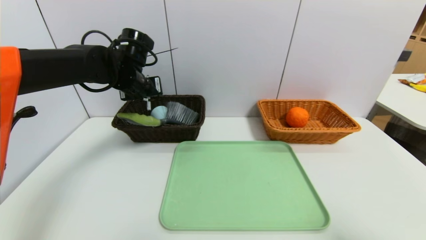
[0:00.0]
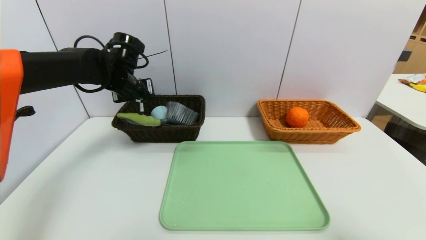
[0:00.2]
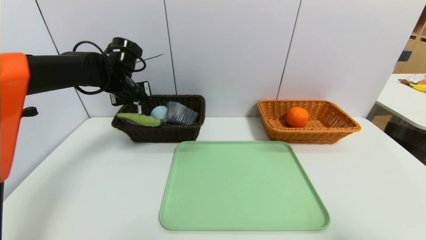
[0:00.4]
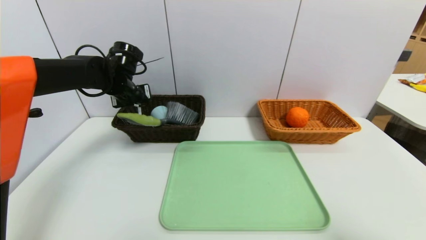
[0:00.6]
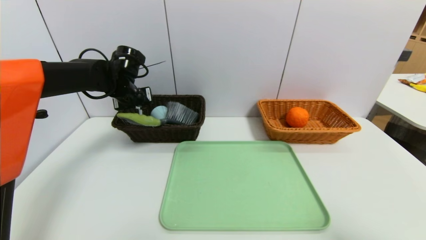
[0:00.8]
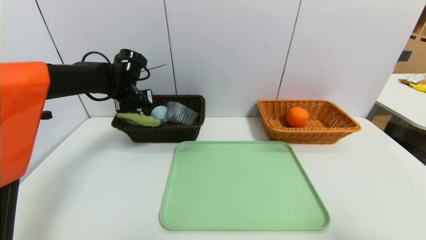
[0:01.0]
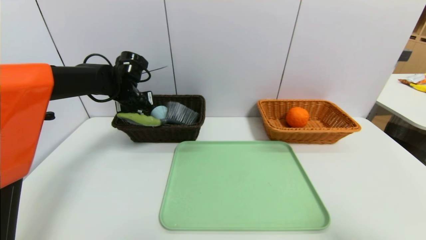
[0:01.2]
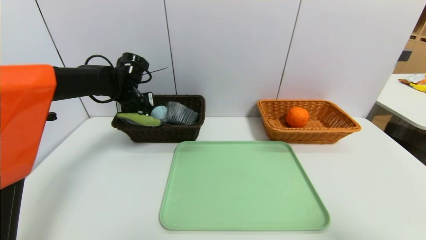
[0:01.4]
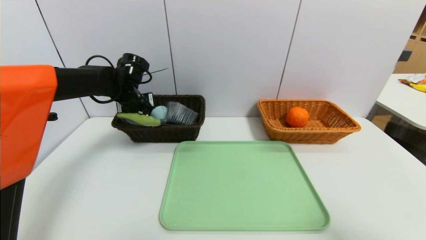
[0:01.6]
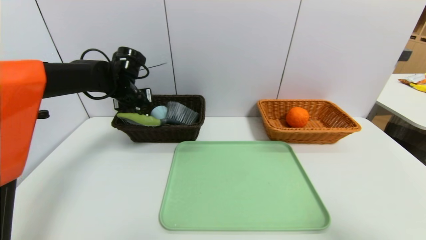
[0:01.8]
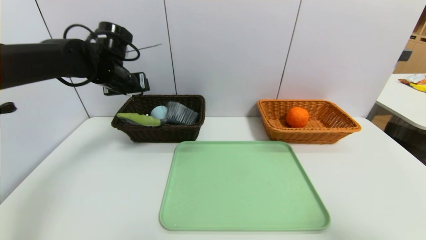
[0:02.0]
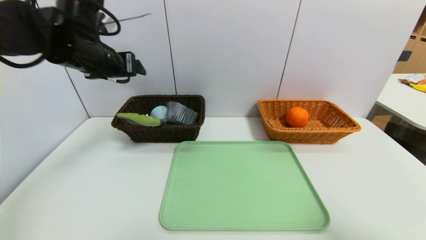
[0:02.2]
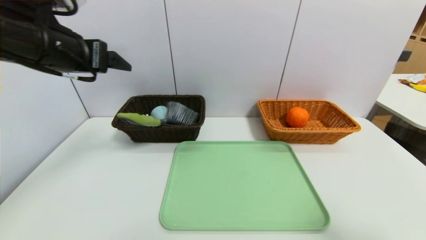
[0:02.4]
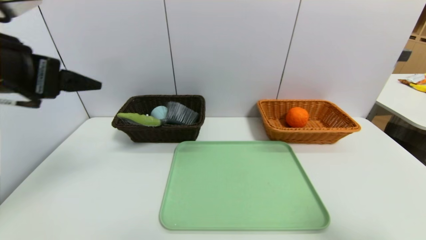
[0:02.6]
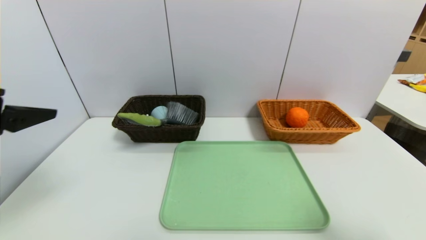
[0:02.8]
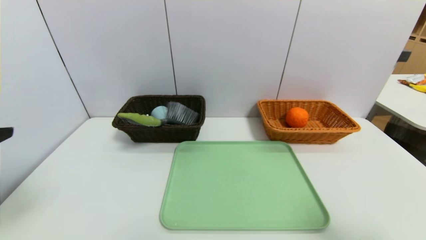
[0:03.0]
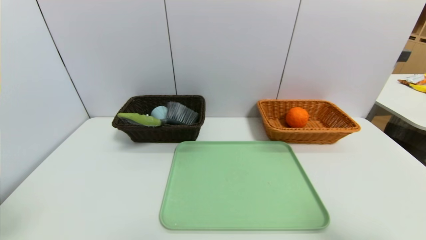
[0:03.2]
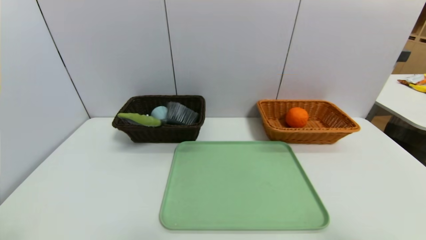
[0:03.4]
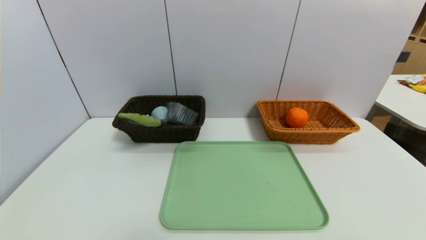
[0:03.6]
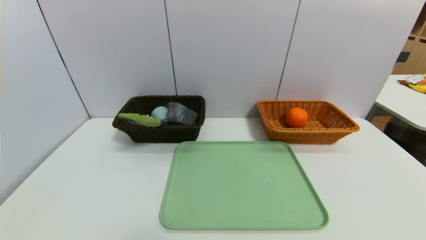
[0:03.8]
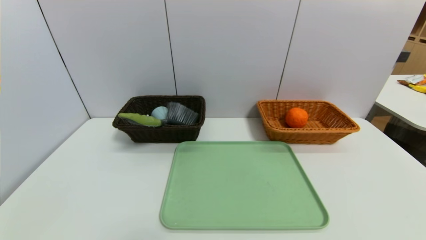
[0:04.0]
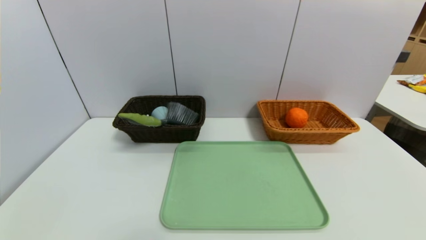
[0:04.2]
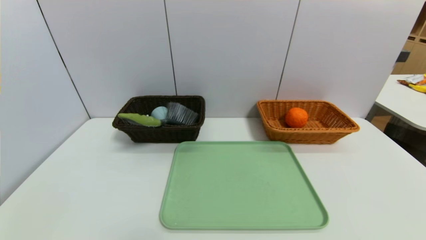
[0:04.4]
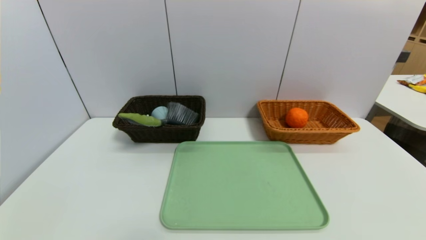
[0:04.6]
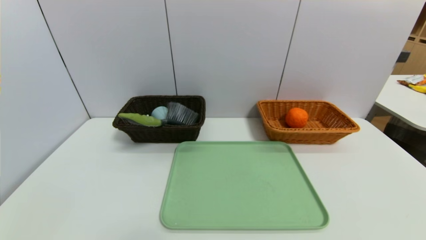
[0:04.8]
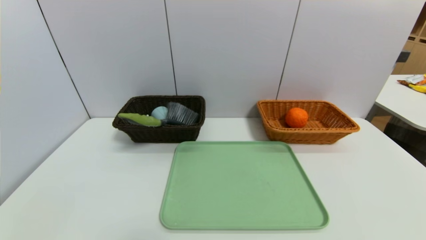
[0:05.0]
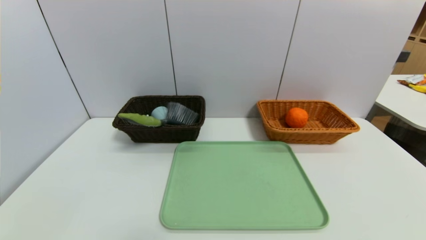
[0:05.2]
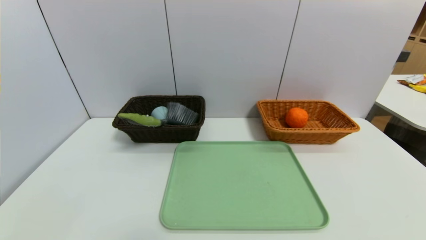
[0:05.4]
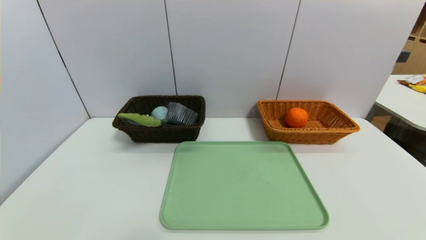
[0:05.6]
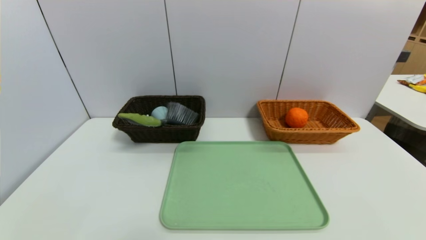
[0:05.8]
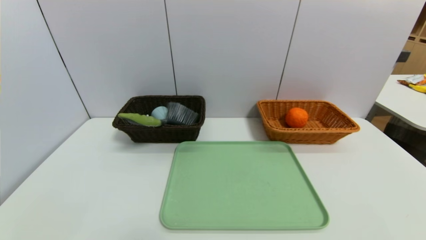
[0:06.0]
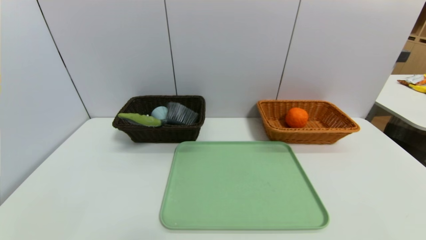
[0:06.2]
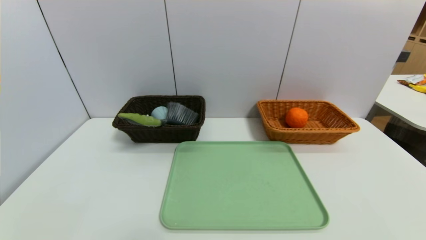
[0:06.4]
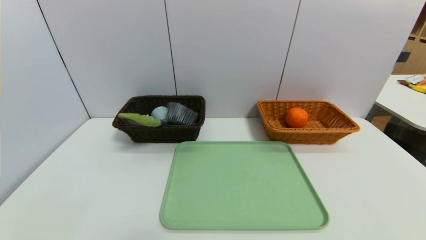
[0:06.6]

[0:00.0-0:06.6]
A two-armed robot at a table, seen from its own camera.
Task of the whole recording: place the food in the right basket with the right gripper, and place the non food items in the left basket with the left gripper.
0:00.0 to 0:01.6: The left gripper goes about 5 cm downward, and opens its fingers.
0:01.6 to 0:03.2: The left gripper travels backward by approximately 40 cm, and opens.
0:03.2 to 0:05.0: The left gripper shifts approximately 20 cm downward, while the right gripper heads downward and backward, covering roughly 15 cm.

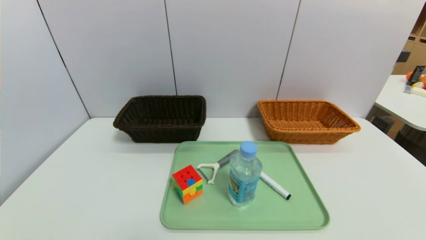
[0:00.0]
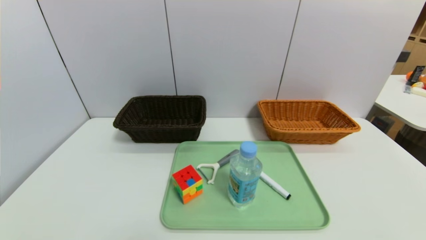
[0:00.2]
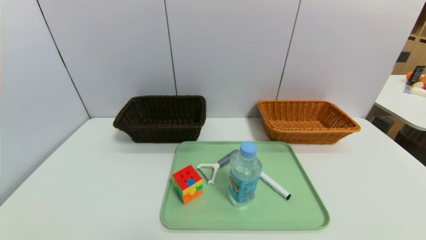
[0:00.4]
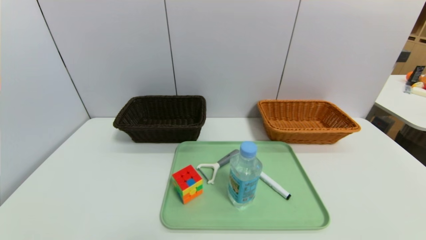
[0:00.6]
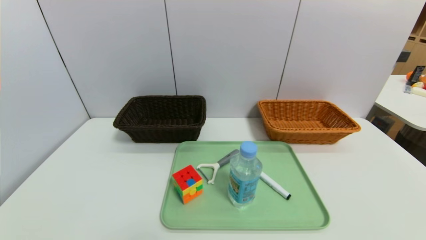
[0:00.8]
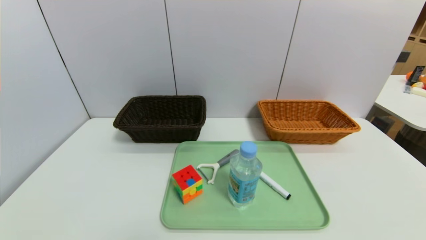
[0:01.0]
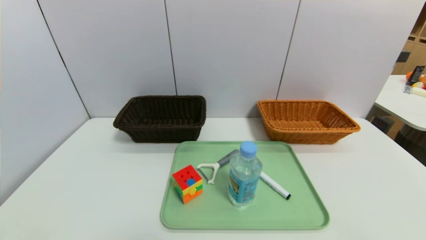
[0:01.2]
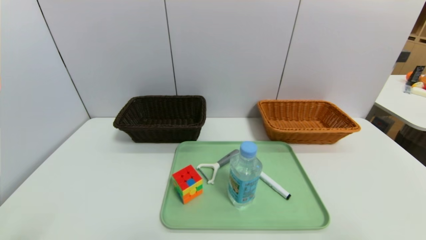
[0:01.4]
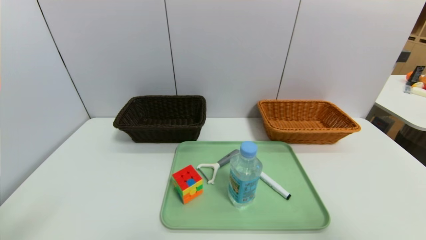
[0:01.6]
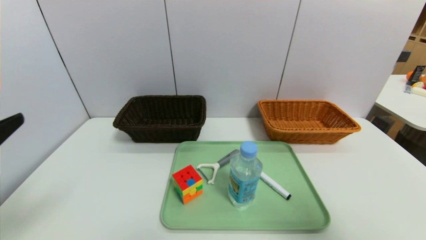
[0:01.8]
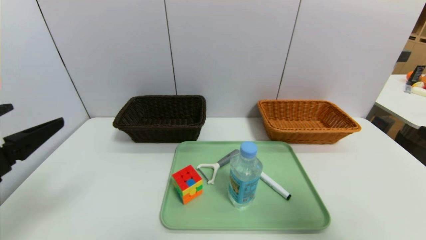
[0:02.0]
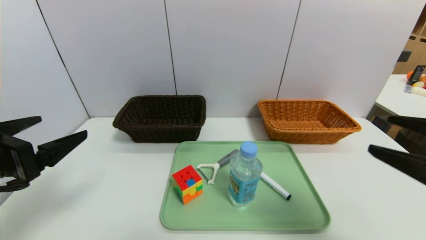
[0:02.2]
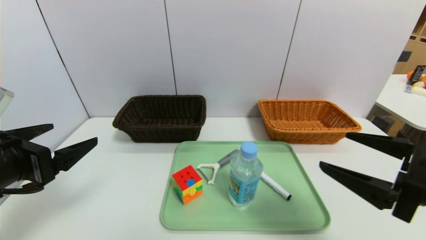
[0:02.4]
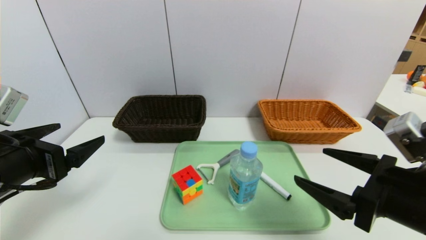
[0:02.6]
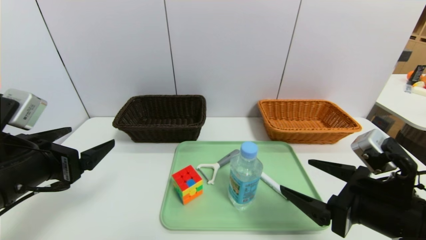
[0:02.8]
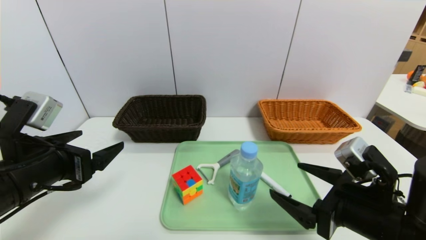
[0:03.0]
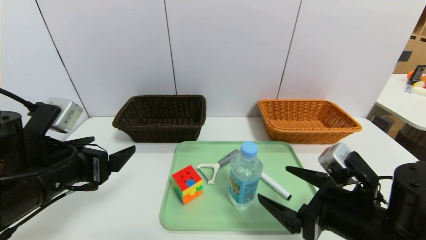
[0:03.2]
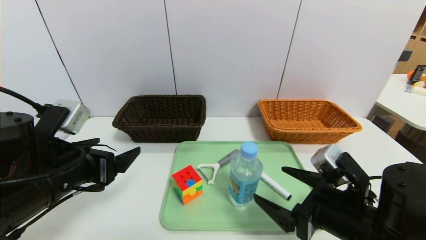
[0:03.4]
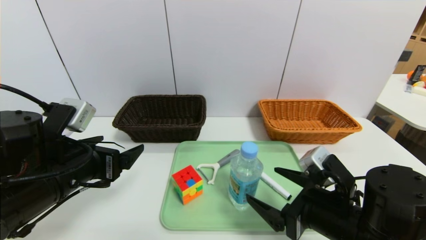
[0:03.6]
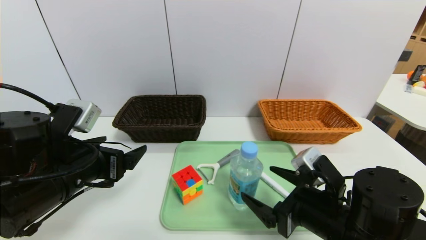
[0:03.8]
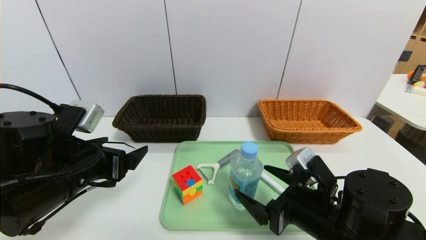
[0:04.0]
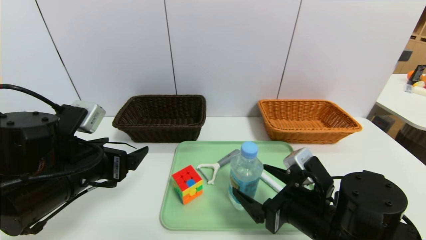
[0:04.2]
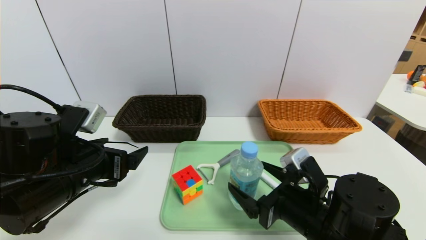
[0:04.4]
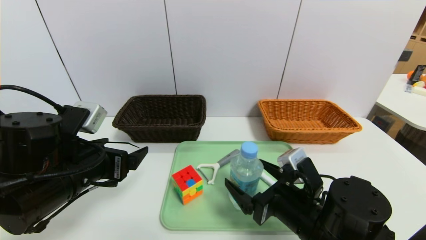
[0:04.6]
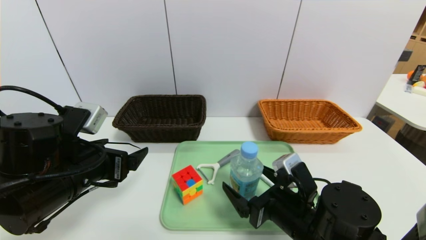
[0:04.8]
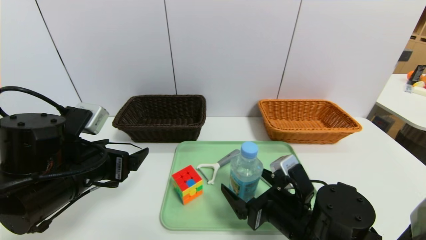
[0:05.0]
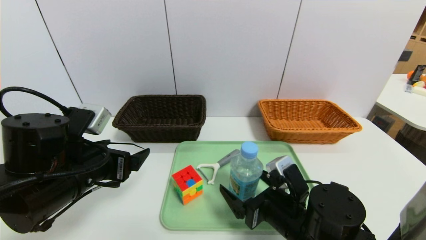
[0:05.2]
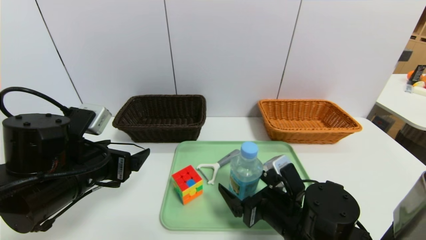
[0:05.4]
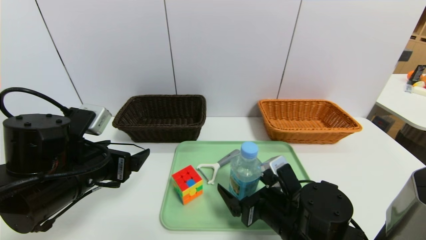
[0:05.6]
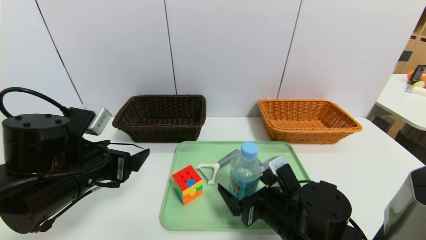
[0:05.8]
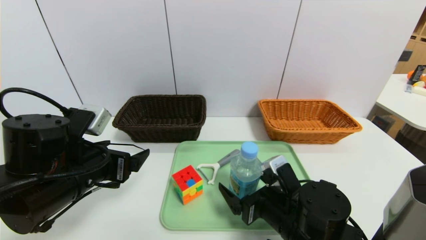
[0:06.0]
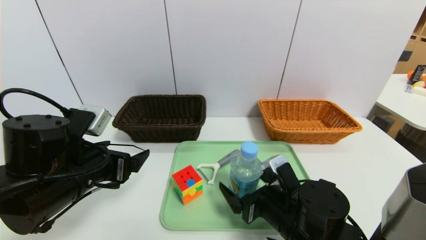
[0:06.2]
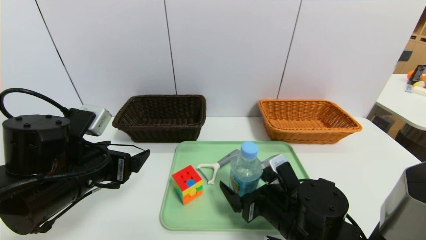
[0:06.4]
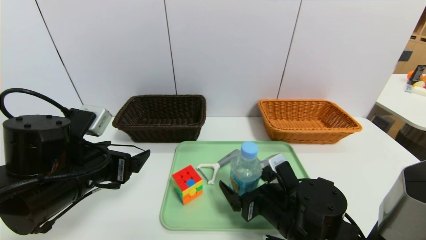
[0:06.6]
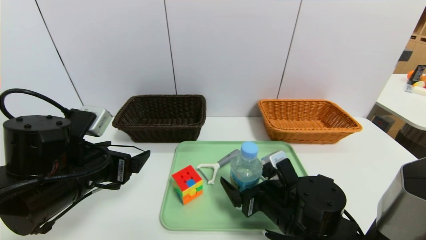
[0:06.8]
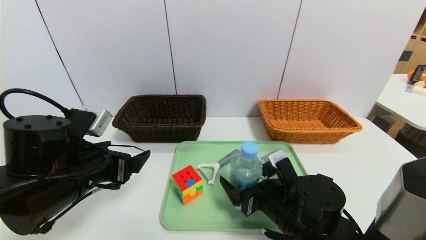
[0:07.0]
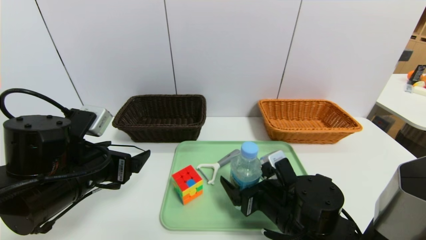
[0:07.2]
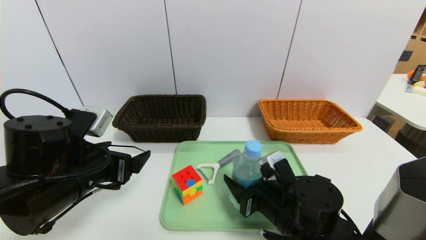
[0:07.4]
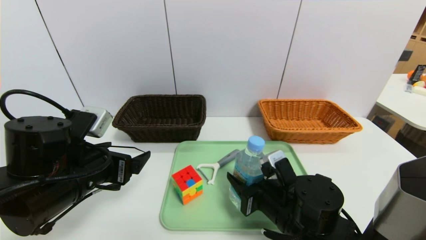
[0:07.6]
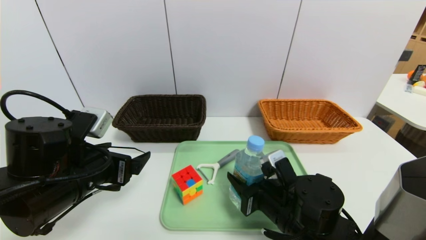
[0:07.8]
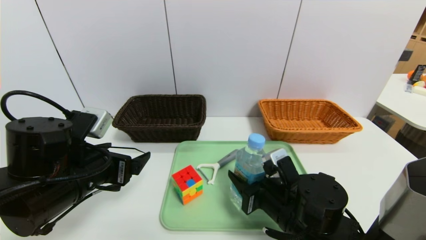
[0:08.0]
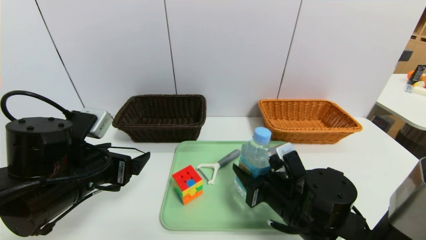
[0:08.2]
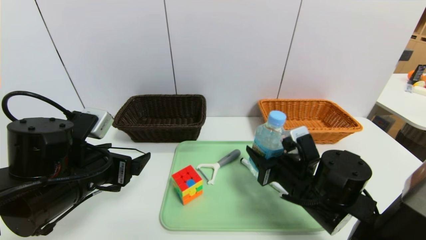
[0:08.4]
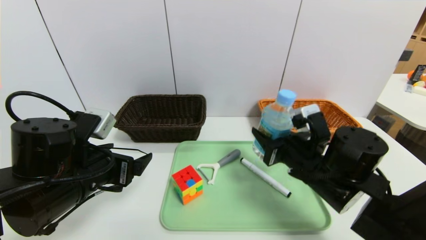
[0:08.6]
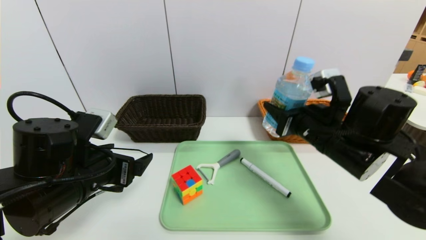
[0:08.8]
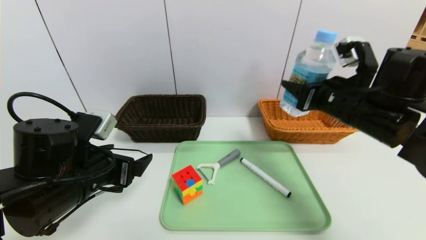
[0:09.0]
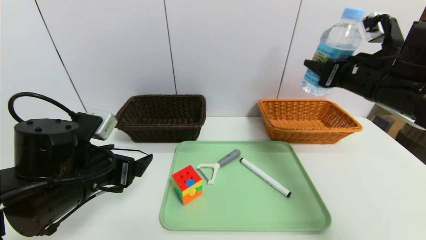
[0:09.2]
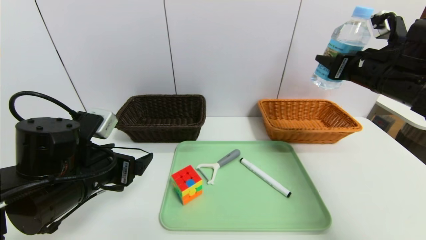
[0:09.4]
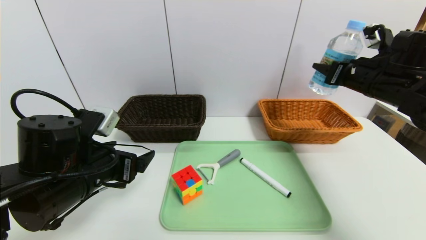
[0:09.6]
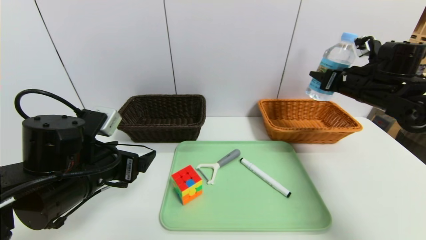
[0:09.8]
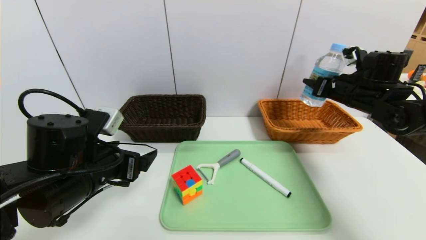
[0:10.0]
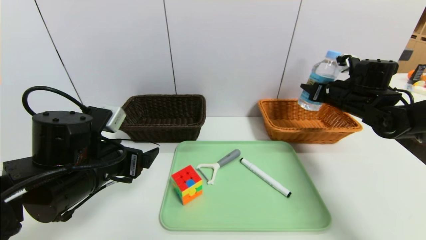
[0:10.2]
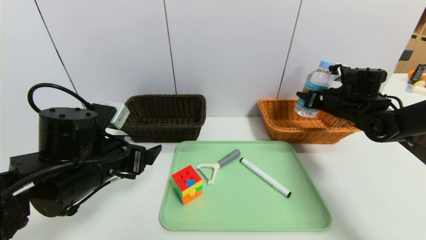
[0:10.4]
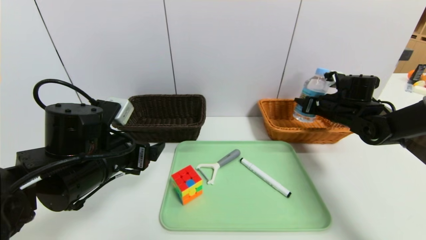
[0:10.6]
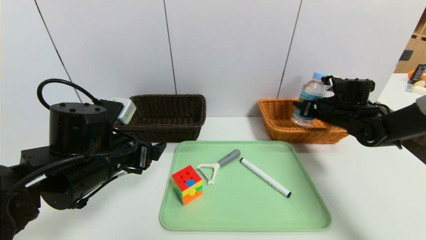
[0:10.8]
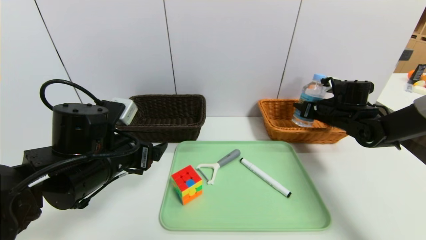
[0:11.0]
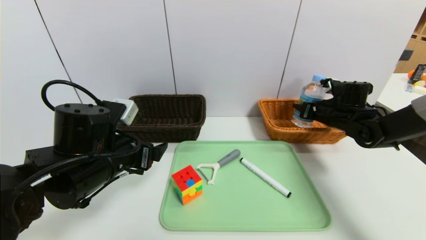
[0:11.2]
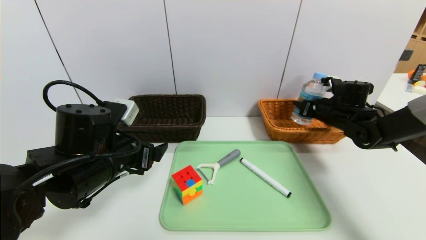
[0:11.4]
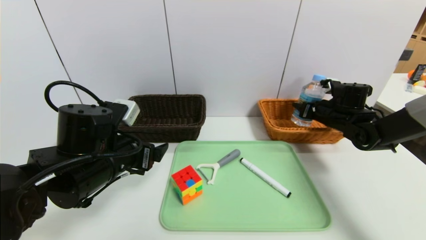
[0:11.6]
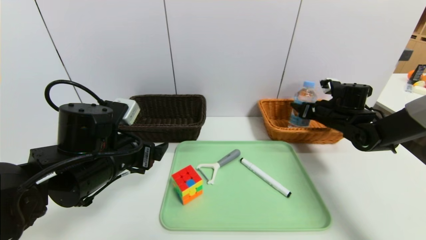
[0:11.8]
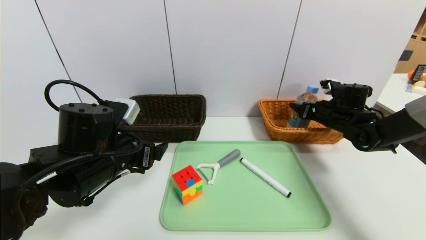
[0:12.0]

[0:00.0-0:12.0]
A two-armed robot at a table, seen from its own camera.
Task of the whole recording: place the food in the right basket with the right gripper, and place the non food items in the left basket with the left gripper.
0:00.0 to 0:01.6: The right gripper heads upward, covering roughly 20 cm.
0:01.6 to 0:03.0: The right gripper goes roughly 20 cm downward, to the left and forward. The left gripper goes some 15 cm forward, downward and to the right.
0:03.0 to 0:04.4: The right gripper travels to the left by about 5 cm.
0:04.4 to 0:06.0: The grippers make only small movements.
0:06.0 to 0:07.6: The right gripper closes its fingers.
0:07.6 to 0:09.0: The right gripper moves upward, to the right and forward, approximately 20 cm.
0:09.0 to 0:10.4: The right gripper travels forward, to the right and downward by about 15 cm.
0:10.4 to 0:12.0: There are only small adjustments of the grippers.
